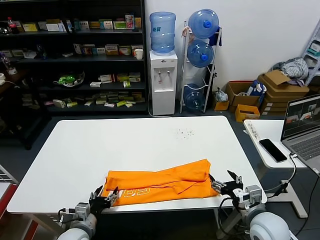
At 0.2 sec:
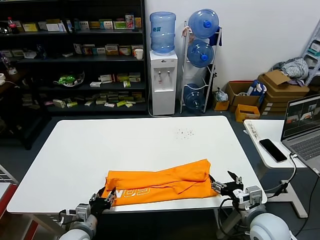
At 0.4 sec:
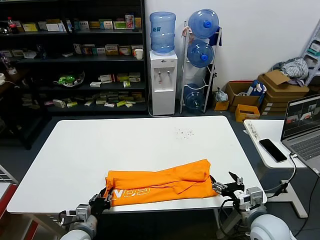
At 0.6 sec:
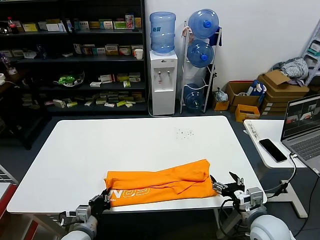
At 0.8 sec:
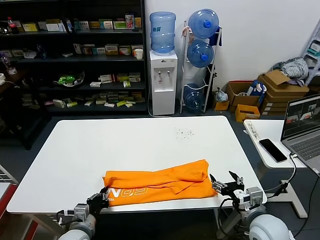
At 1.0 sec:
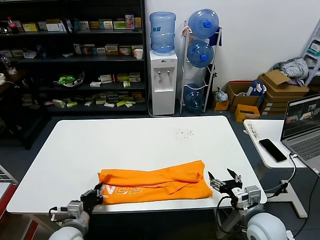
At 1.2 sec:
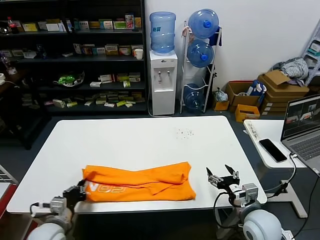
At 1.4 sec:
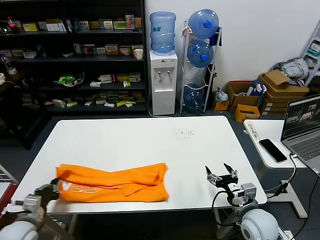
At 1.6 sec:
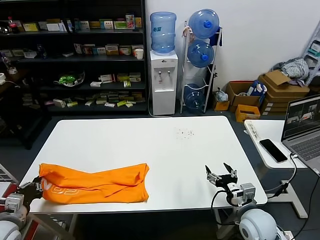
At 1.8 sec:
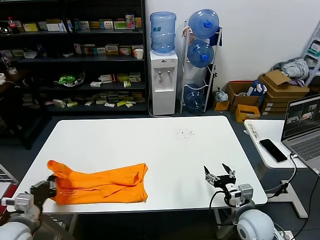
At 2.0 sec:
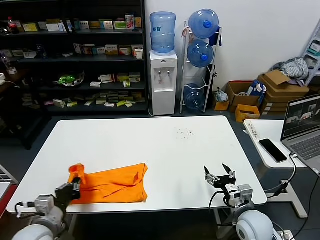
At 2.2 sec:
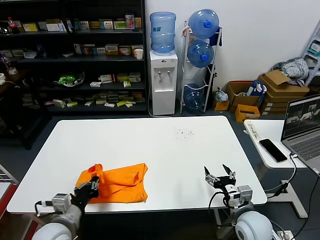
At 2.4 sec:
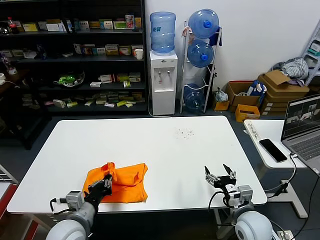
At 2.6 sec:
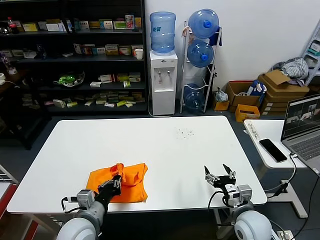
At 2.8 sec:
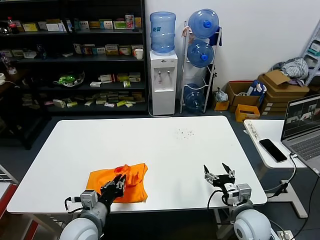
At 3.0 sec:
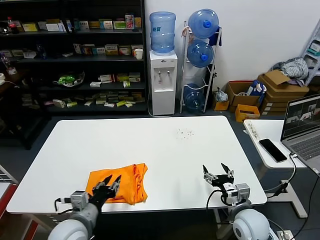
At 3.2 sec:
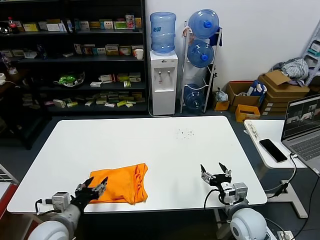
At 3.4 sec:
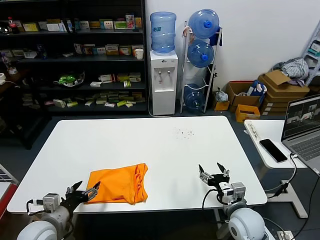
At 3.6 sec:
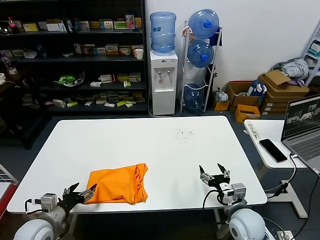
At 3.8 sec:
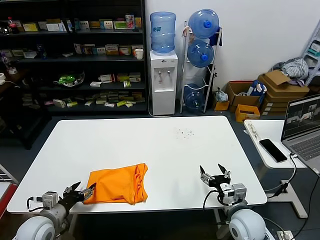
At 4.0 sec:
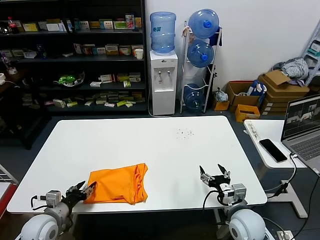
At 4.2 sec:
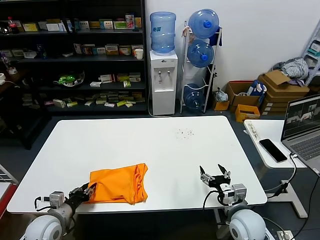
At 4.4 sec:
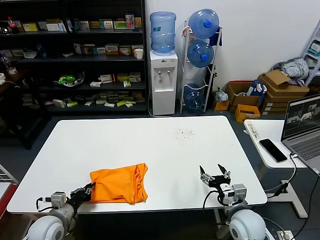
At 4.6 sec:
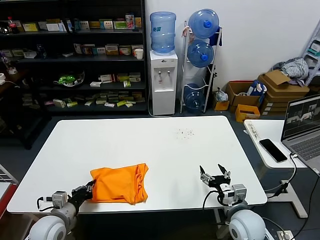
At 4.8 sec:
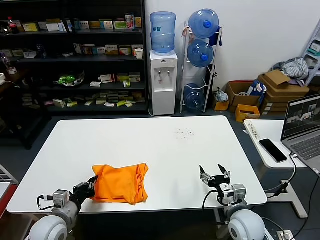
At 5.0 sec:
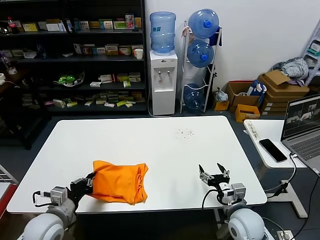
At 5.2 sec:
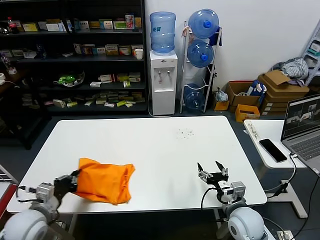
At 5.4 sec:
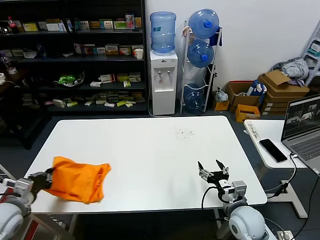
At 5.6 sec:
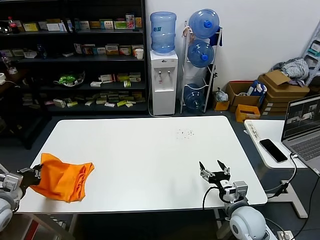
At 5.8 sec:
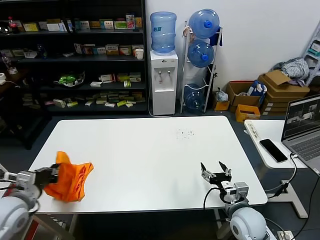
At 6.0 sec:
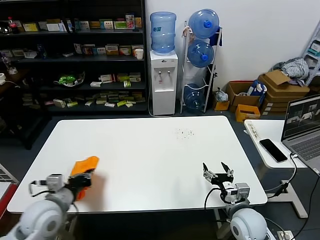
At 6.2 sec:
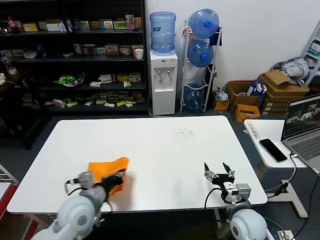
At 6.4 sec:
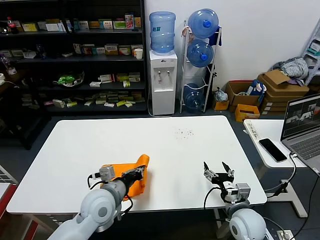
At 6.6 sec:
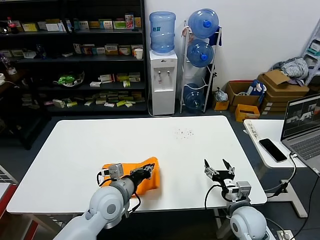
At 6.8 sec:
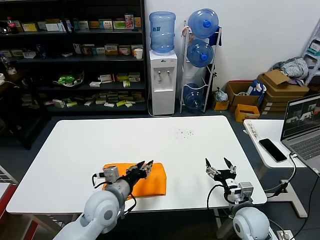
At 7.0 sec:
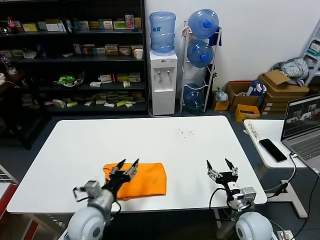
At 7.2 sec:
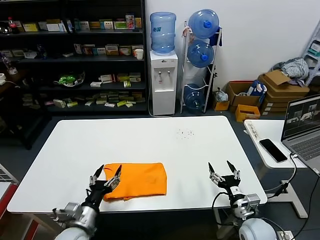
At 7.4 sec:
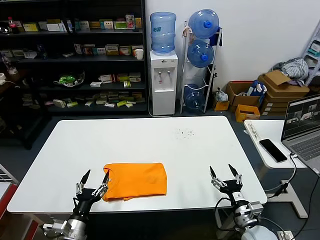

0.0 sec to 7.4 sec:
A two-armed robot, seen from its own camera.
Task of the whole recording: fold and organize the clothes.
Step, 0.0 sec to 0.6 sec: use the left gripper to clamp the left edge of the fabric.
Step, 0.8 sec to 3.0 sec: use the left gripper to drag the left edge of the fabric to the left and folds it over the right edge.
Step, 3.2 sec to 6.8 sec: Flip the folded clothes over with left gripper.
0.0 sec to 1.4 sec: The left gripper heads to the left and upward, covering some 15 cm, and closes up.
1.4 sec to 3.0 sec: The left gripper goes approximately 15 cm to the right, and opens up.
3.0 sec to 4.4 sec: The left gripper is displaced to the left and downward by about 15 cm, and opens and closes again.
4.4 sec to 6.0 sec: The left gripper moves left and right over roughly 15 cm, changing direction 2 times.
6.0 sec to 7.4 sec: The right gripper ends up roughly 5 cm from where it was. The left gripper goes approximately 15 cm downward and backward, goes to the right and returns, about 20 cm each way, and opens.
